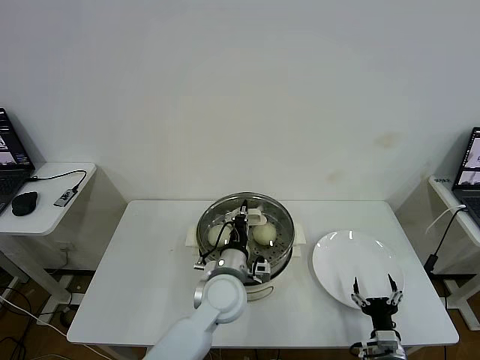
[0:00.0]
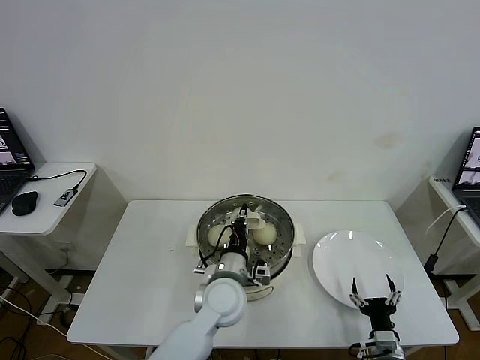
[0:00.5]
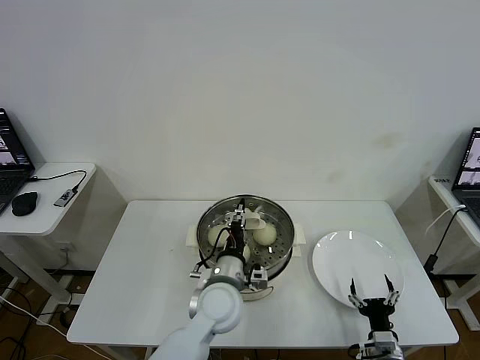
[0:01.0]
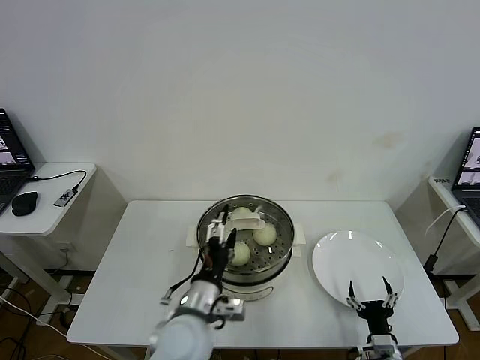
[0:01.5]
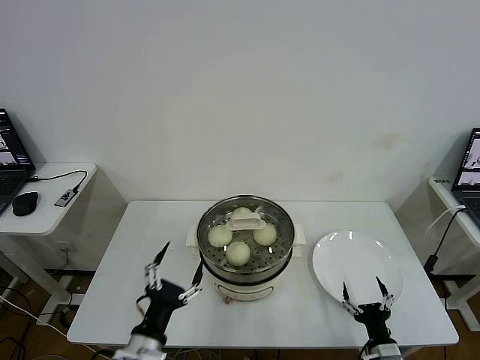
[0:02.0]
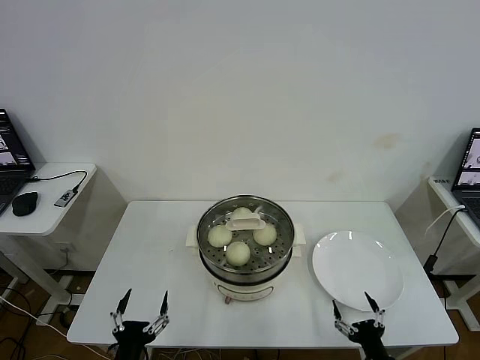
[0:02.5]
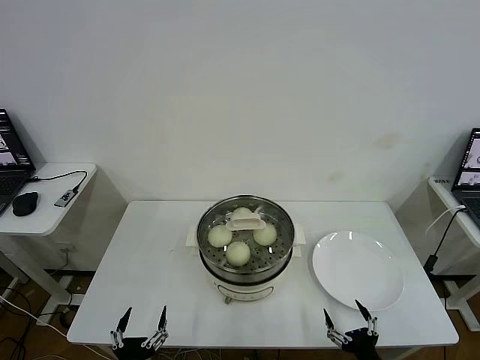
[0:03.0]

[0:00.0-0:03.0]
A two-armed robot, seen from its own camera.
Task of the whole recording: take steamed baozi put them in steamer then cover it.
0:00.0 to 0:01.5: The left gripper goes some 10 cm backward and to the left, and opens up.
0:01.5 to 0:03.0: The left gripper is displaced backward, to the left and downward by some 25 cm; the right gripper travels backward by some 10 cm.

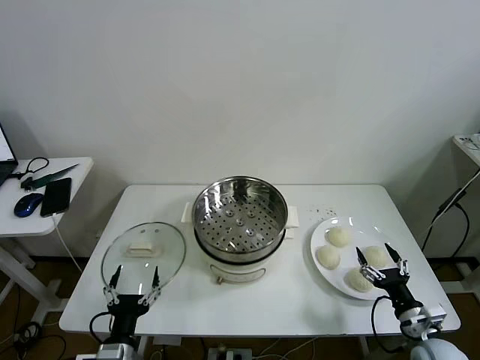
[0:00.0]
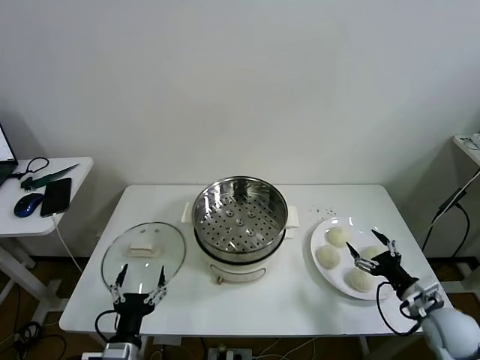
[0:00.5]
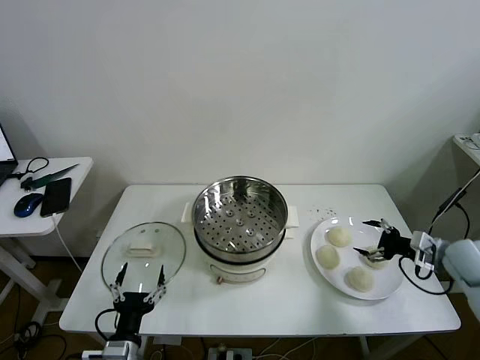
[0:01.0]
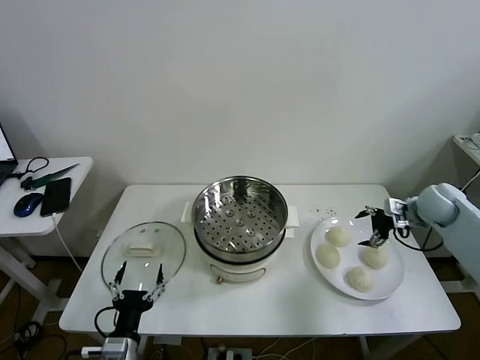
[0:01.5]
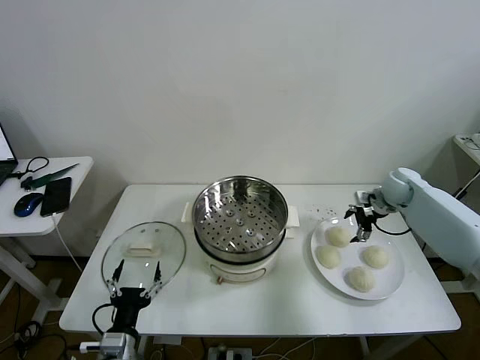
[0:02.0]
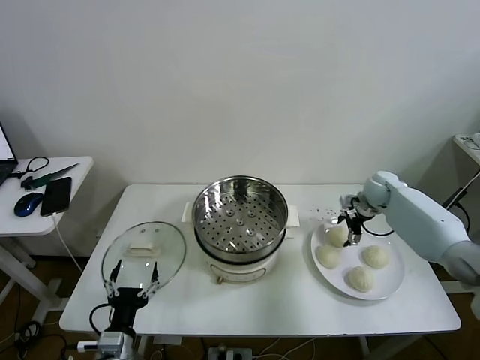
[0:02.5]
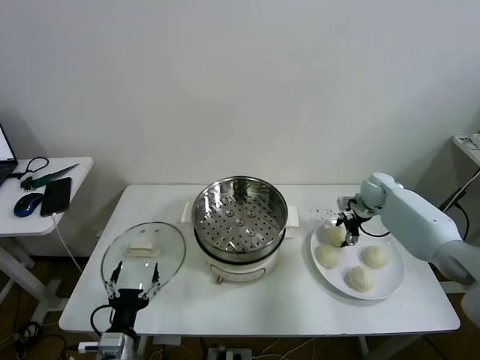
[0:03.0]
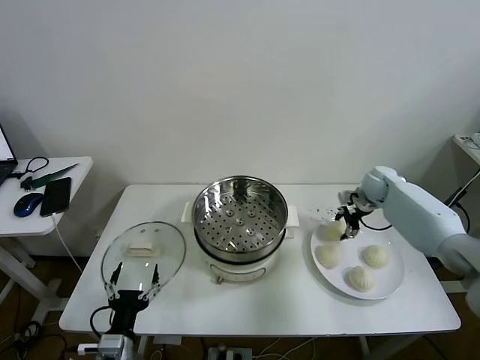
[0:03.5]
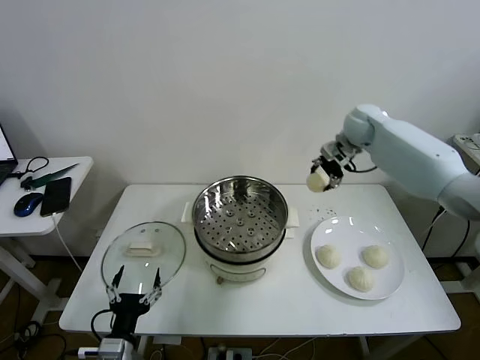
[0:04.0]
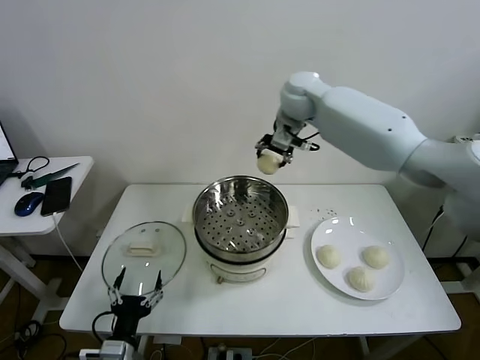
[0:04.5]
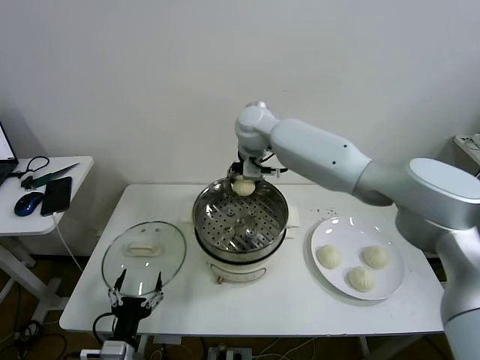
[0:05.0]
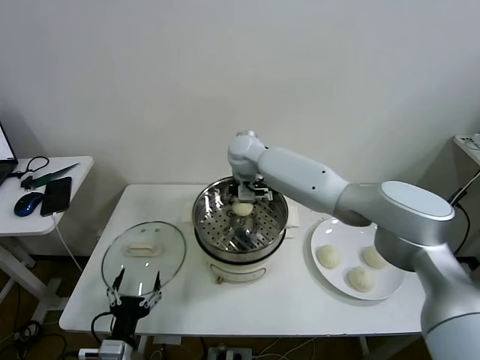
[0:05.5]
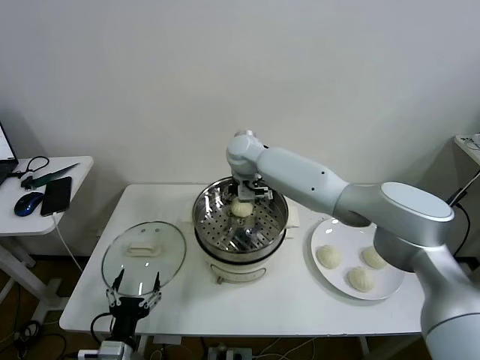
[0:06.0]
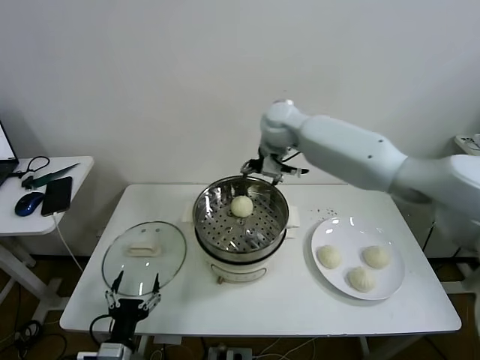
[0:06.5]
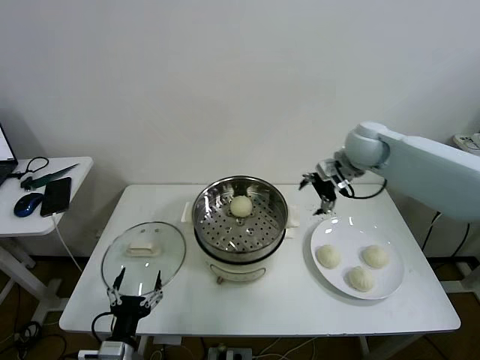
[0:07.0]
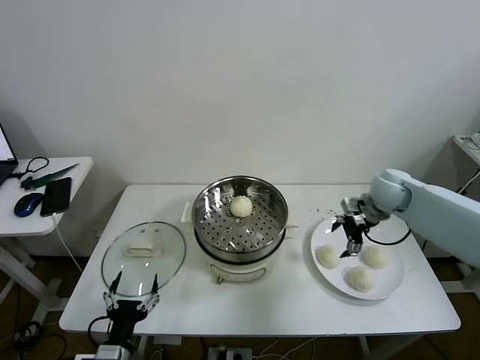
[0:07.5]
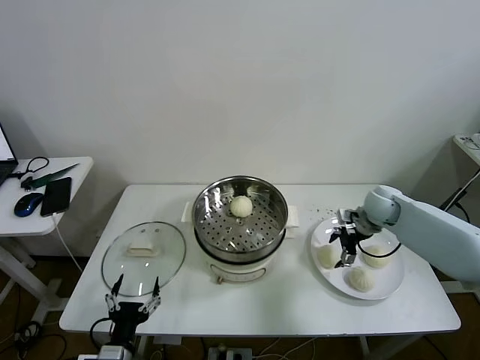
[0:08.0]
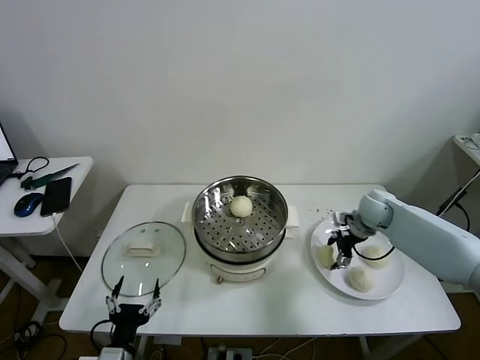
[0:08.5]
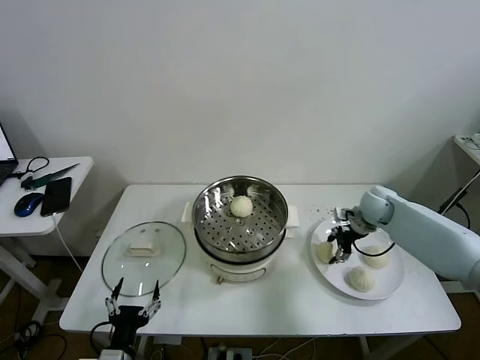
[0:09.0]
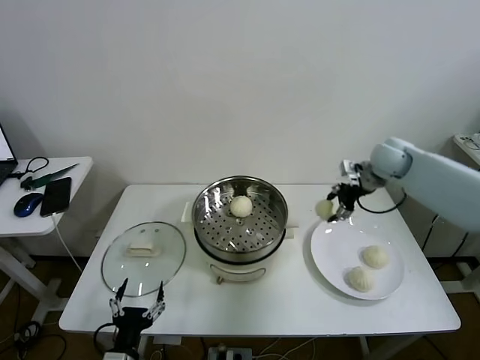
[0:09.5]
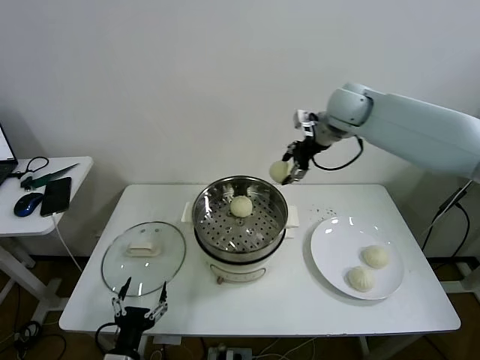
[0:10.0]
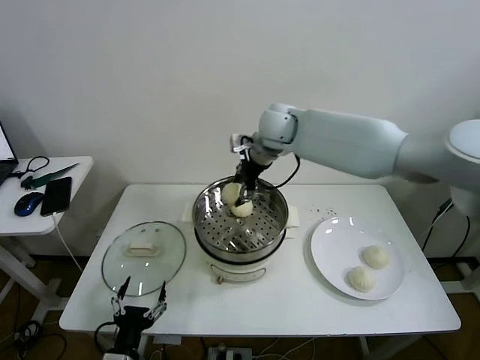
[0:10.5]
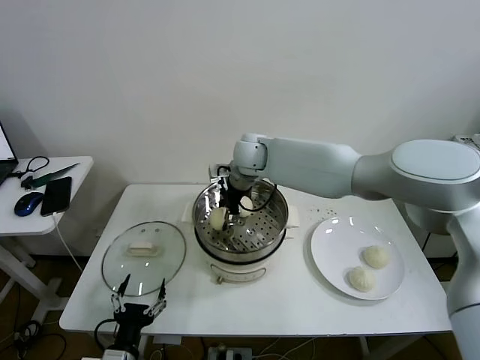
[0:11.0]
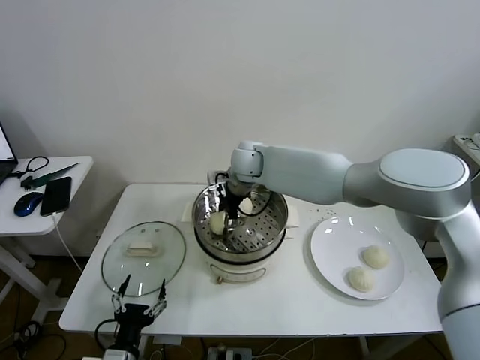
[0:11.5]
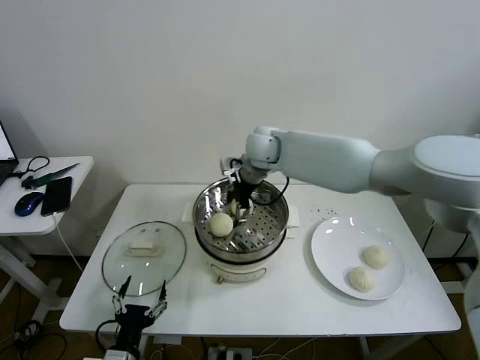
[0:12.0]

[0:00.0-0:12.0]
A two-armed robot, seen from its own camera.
Task of the whole recording: take steamed baozi put them in steamer then cover it.
Step, 0:00.0 to 0:03.0: Grasp the baozi in the plate with right gripper.
Step, 0:03.5 to 0:06.0: Place the baozi on the steamer with right gripper.
Step, 0:06.5 to 0:08.5: Grasp the baozi in the plate with right gripper.
Step, 0:09.0 to 0:11.5: Place the baozi on the steamer with right gripper.
0:02.0 to 0:04.0: The right gripper travels upward and to the left by approximately 25 cm, and closes up.
0:04.0 to 0:06.0: The right gripper shifts approximately 25 cm to the left, and opens.
0:06.0 to 0:08.0: The right gripper is displaced to the right by roughly 35 cm.
0:08.0 to 0:10.0: The right gripper heads upward and to the left, covering about 30 cm, and closes its fingers.
0:10.0 to 0:12.0: The right gripper shifts some 15 cm to the left and downward, and opens.

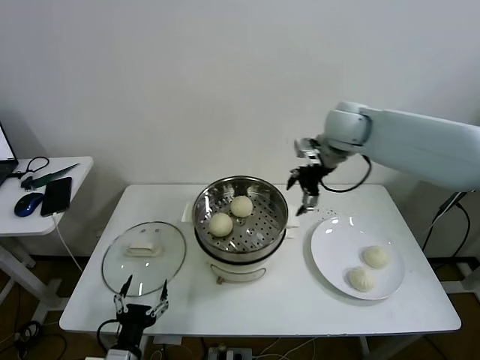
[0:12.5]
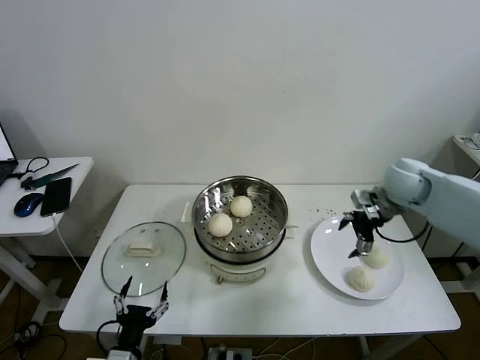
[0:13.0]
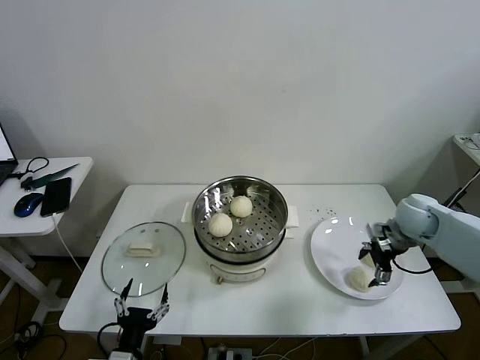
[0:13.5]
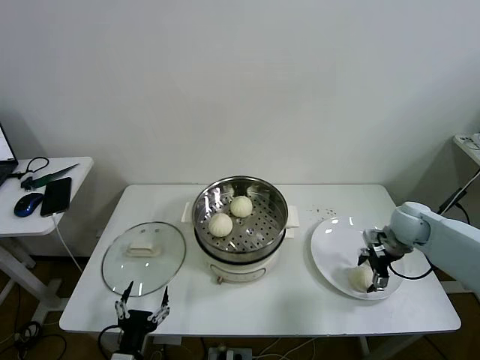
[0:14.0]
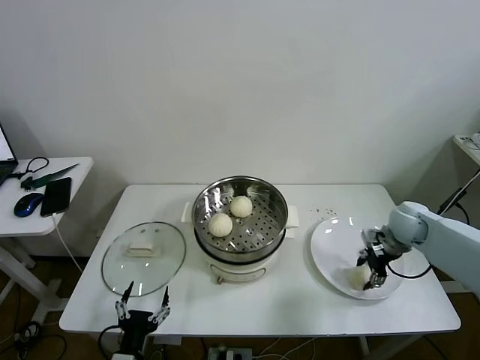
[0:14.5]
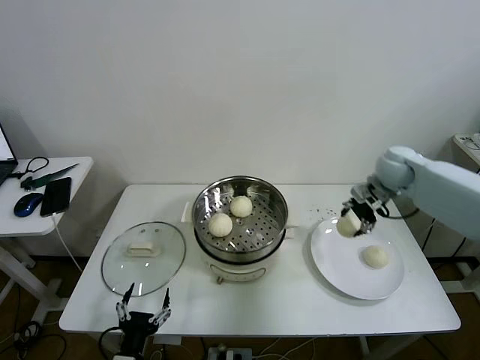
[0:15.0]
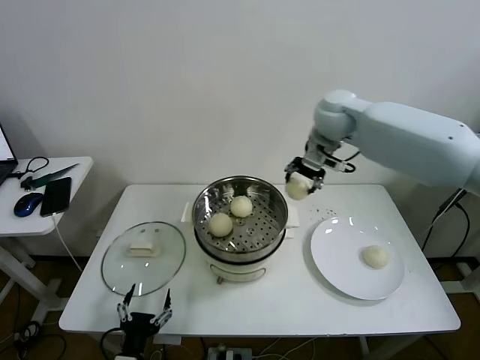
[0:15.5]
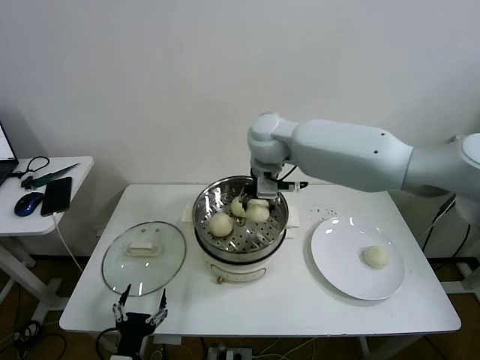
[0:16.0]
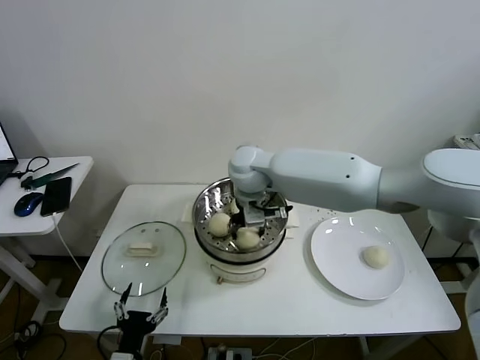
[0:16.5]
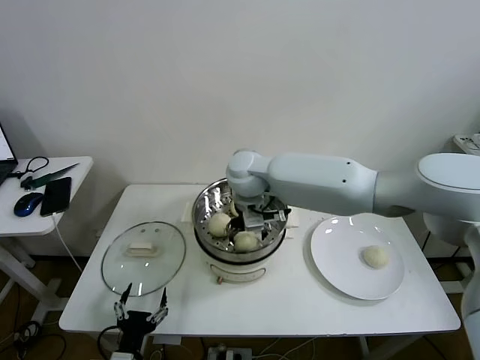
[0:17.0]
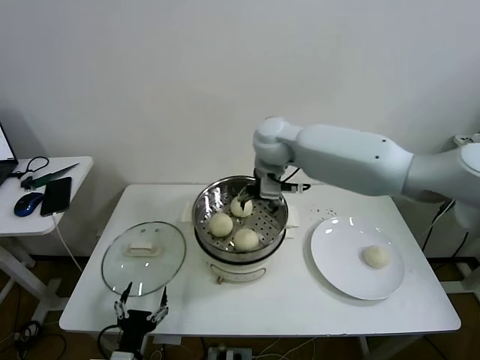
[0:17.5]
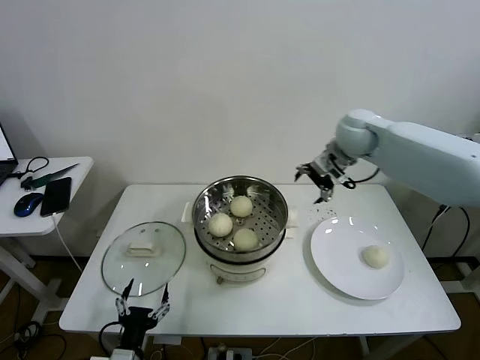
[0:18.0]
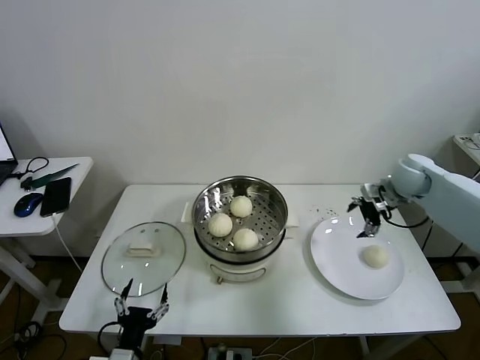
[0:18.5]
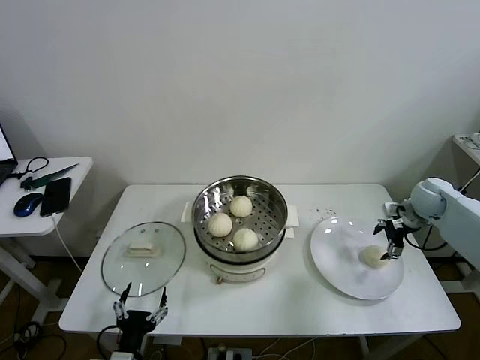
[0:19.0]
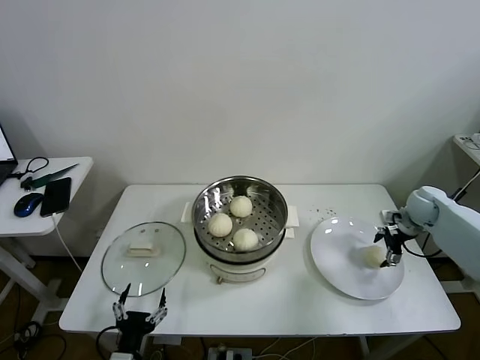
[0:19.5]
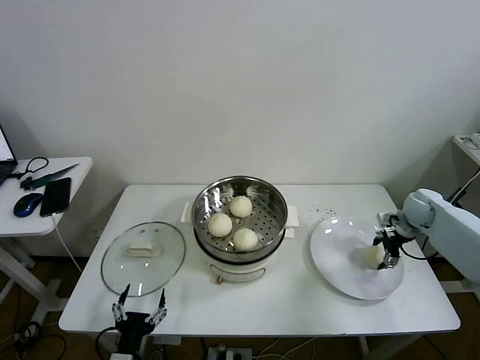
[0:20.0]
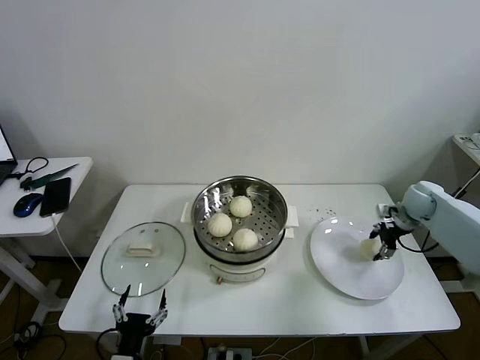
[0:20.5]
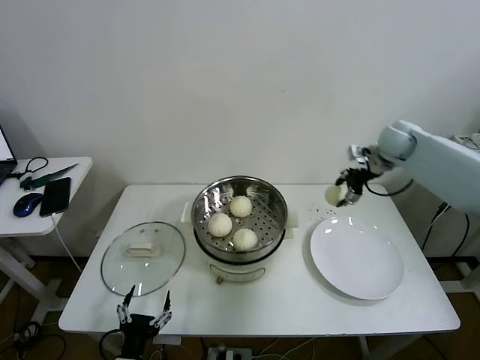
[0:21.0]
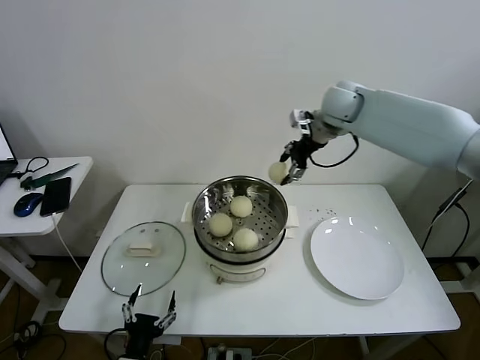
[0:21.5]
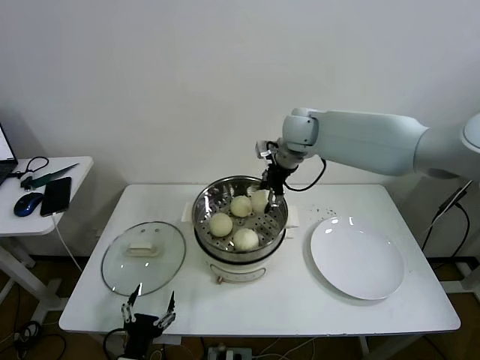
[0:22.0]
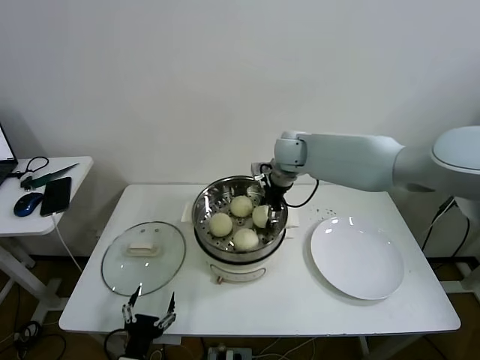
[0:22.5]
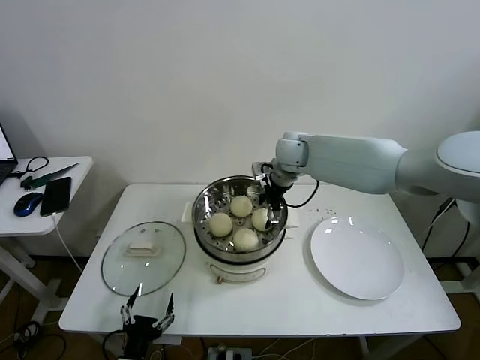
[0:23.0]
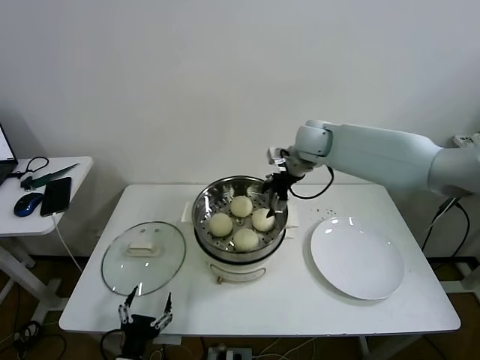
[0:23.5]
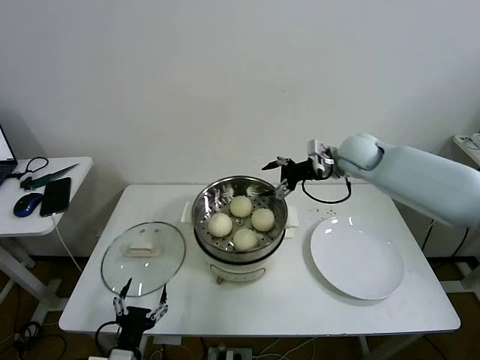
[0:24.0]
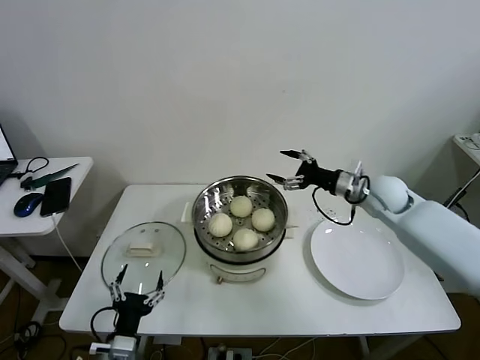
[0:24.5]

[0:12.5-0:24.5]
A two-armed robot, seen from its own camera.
Task of the whole recording: take steamed baozi put them in steamer then cover it.
Step, 0:12.5 to 0:14.0: Grasp the baozi in the plate with right gripper.
Step, 0:15.0 to 0:17.0: Place the baozi on the steamer with right gripper.
Step, 0:17.5 to 0:20.0: Grasp the baozi in the plate with right gripper.
Step, 0:20.5 to 0:22.5: Place the baozi on the steamer with right gripper.
0:12.5 to 0:14.5: The right gripper goes about 30 cm downward and to the right, and closes up.
0:14.5 to 0:16.5: The right gripper travels to the left by roughly 40 cm.
0:16.5 to 0:18.5: The right gripper moves to the right, some 40 cm, and opens up.
0:18.5 to 0:20.5: The right gripper travels downward and to the right by about 10 cm, and closes.
0:20.5 to 0:22.5: The right gripper moves to the left, about 35 cm.
0:22.5 to 0:24.5: The right gripper travels to the right and backward by about 20 cm, and opens up.
